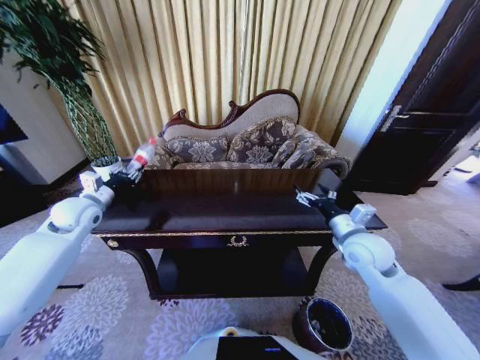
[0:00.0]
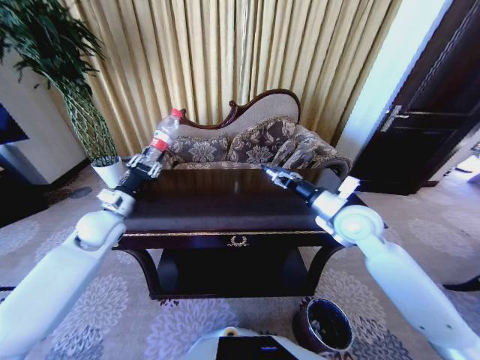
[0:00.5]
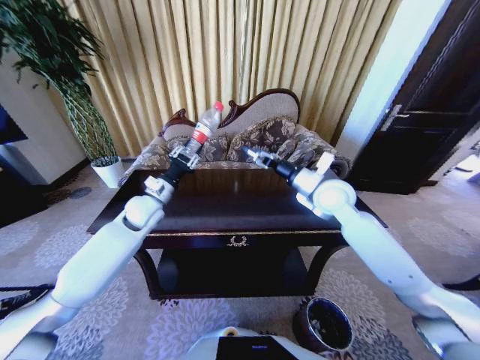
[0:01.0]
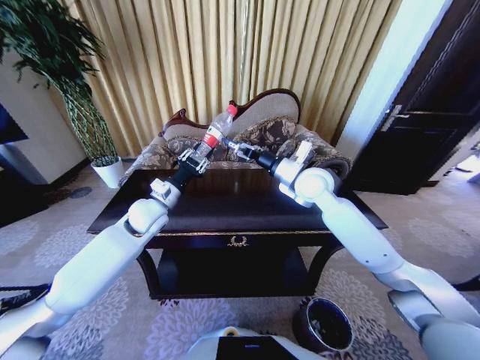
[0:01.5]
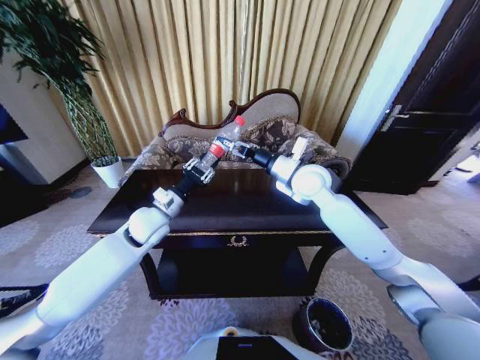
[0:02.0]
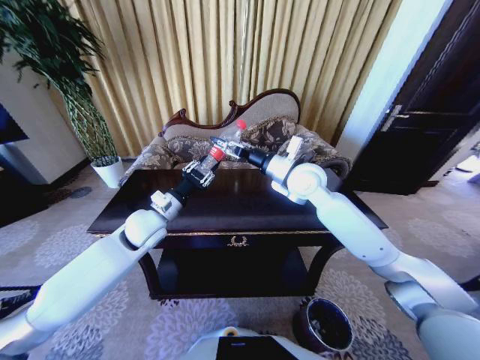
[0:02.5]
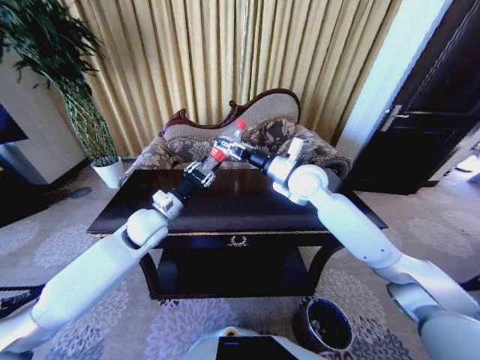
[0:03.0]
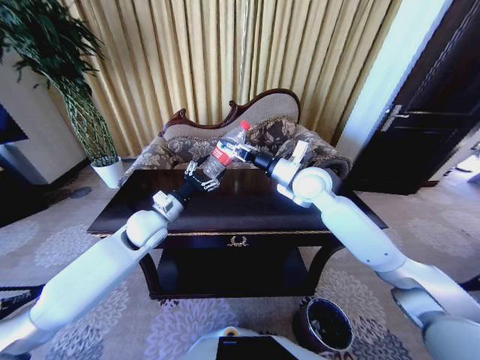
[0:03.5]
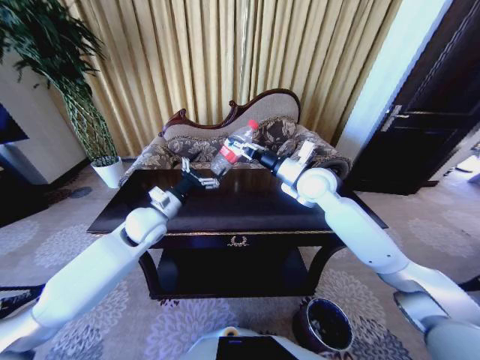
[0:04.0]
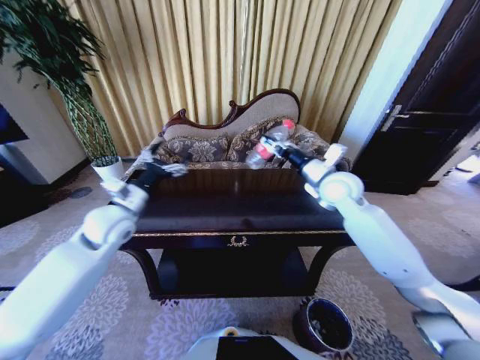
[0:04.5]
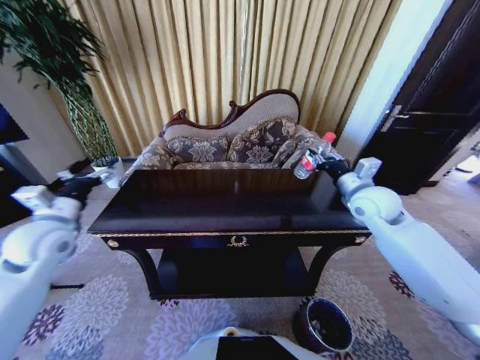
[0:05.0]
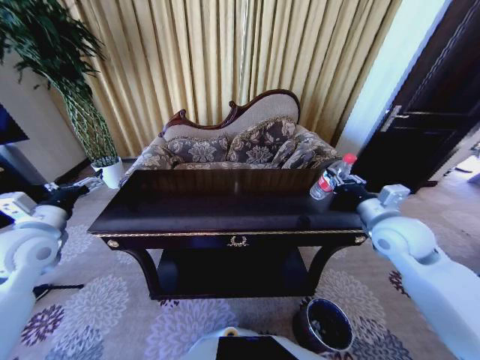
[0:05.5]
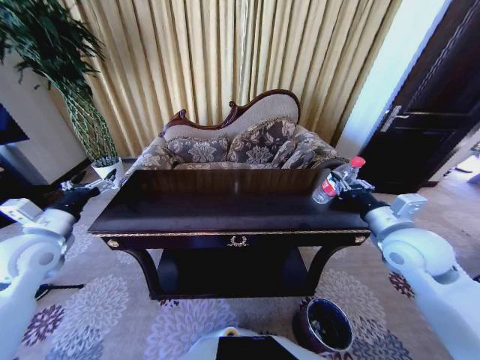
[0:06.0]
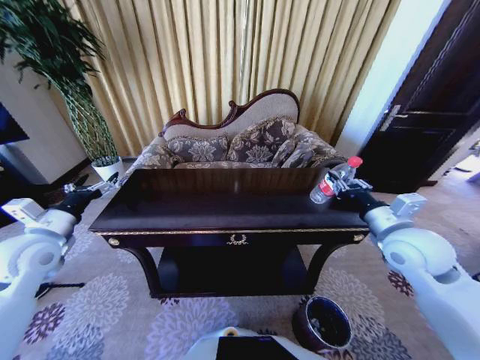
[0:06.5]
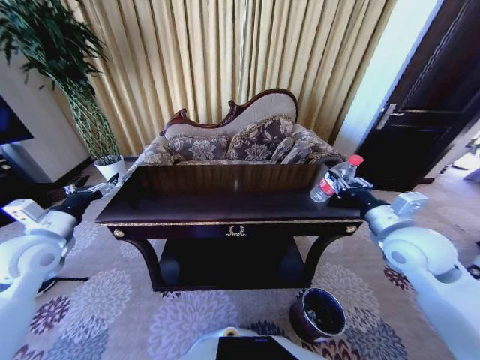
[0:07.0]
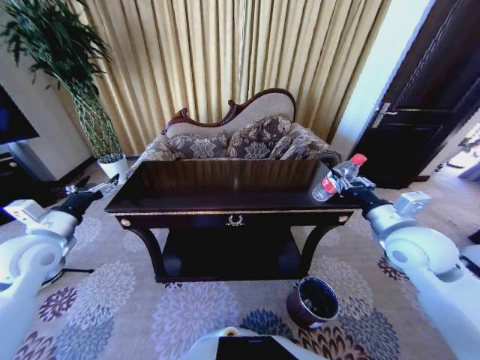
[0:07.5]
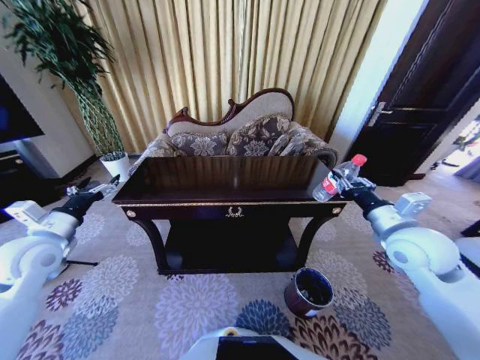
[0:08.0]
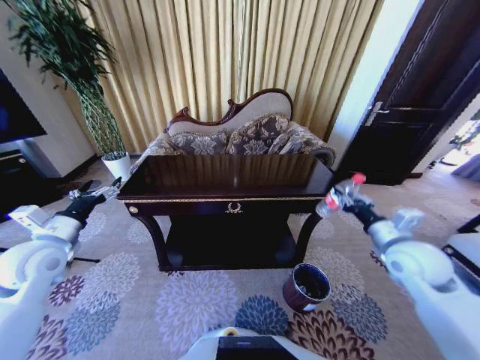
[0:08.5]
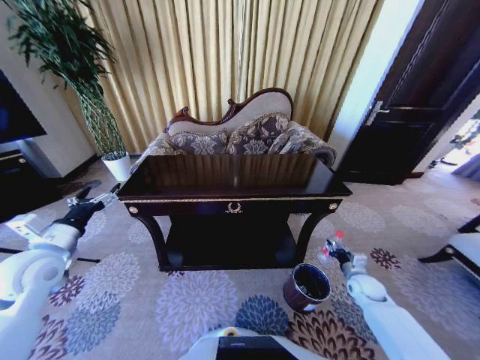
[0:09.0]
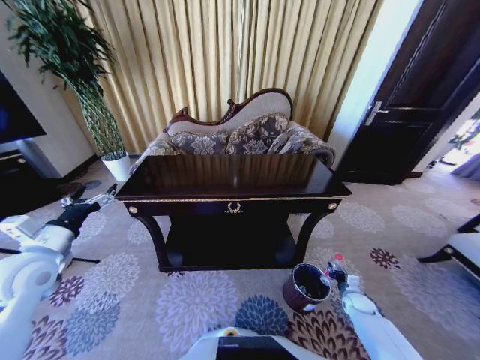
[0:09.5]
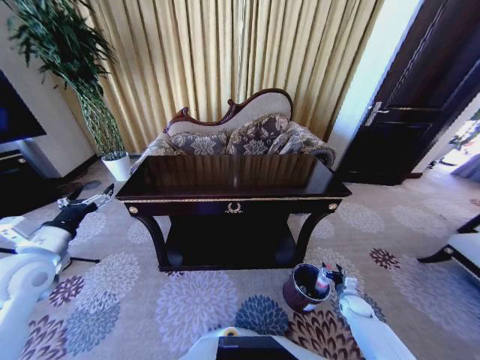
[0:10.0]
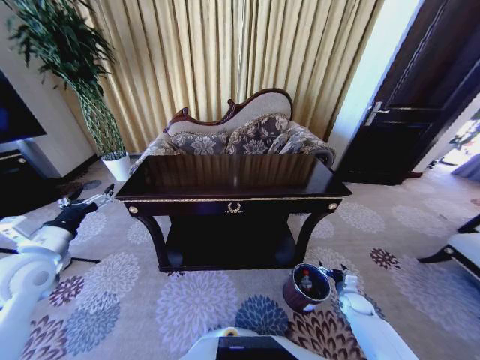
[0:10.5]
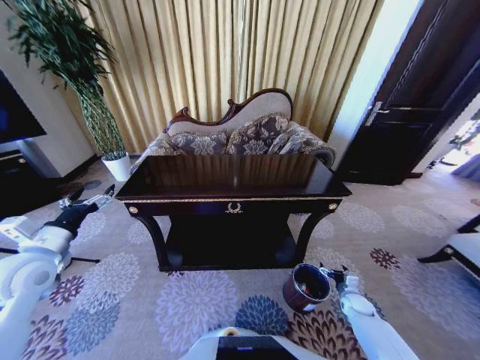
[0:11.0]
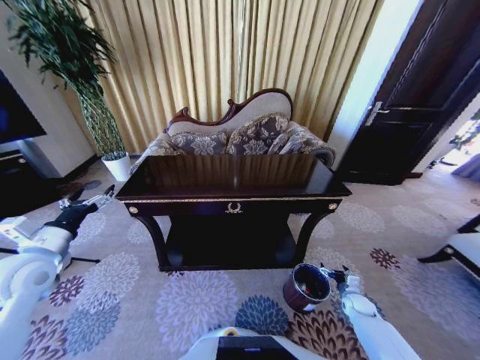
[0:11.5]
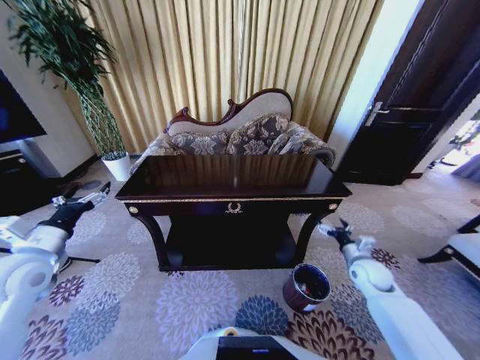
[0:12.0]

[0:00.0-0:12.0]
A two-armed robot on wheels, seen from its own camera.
Task of the whole recording: Move to the front of the table and place the trash on the table into the trash bin.
0:00.0 to 0:02.0: The right gripper goes some 20 cm forward, to the left and upward. Meanwhile the left gripper travels to the right by some 20 cm.
0:02.0 to 0:04.0: The left gripper opens up. Meanwhile the right gripper closes.
0:04.0 to 0:06.0: The right gripper shifts about 25 cm backward and to the right. The left gripper is displaced to the left and backward by roughly 20 cm.
0:08.0 to 0:10.0: The right gripper heads downward, covering some 40 cm, and opens its fingers.
0:10.0 to 0:12.0: The right gripper travels upward by approximately 20 cm, and opens up.

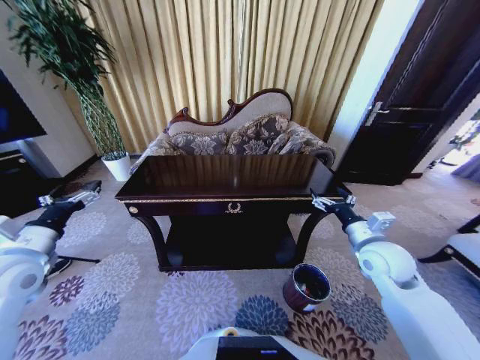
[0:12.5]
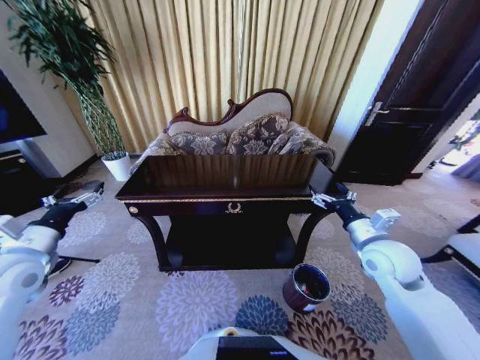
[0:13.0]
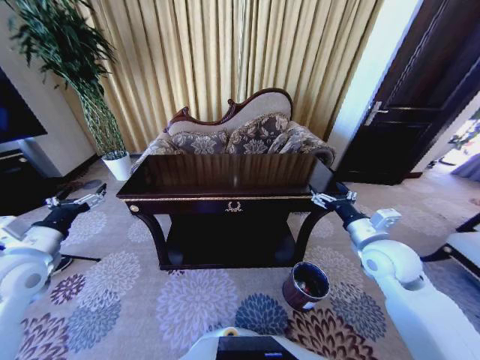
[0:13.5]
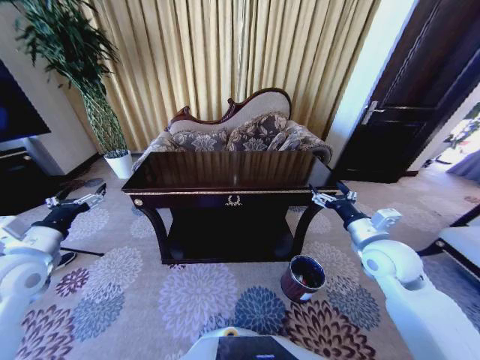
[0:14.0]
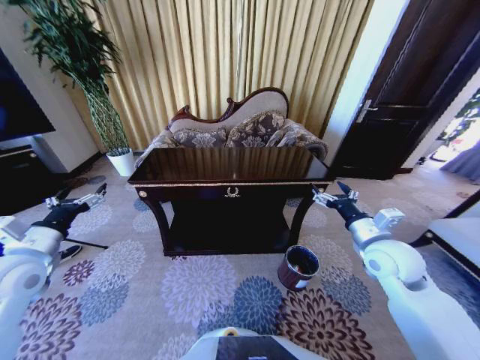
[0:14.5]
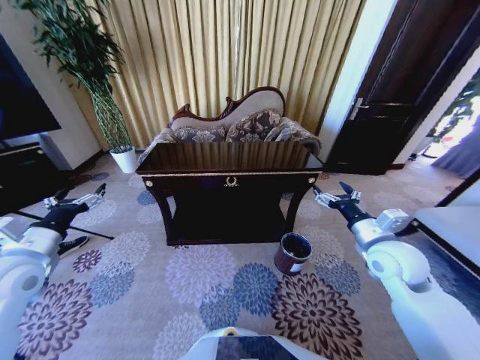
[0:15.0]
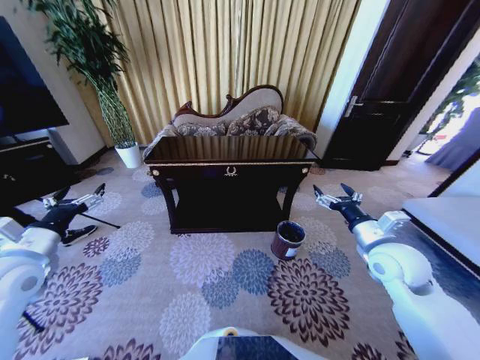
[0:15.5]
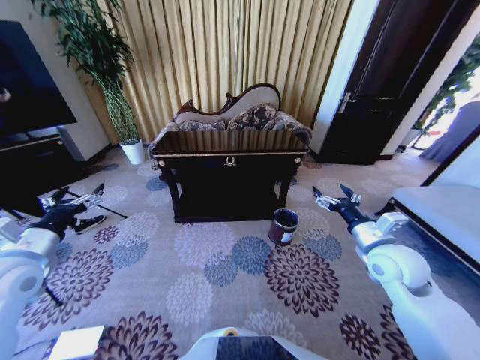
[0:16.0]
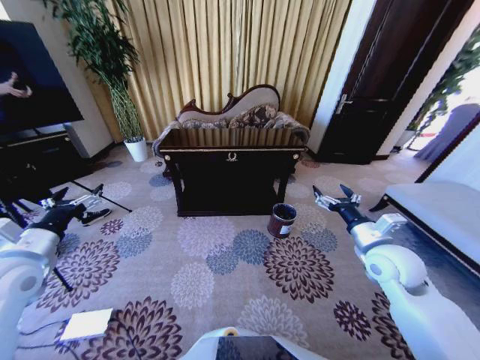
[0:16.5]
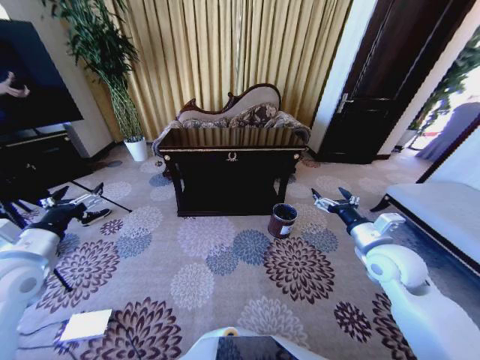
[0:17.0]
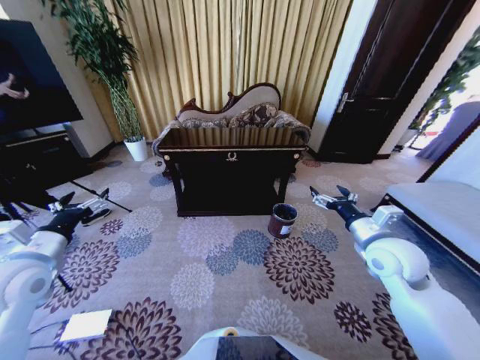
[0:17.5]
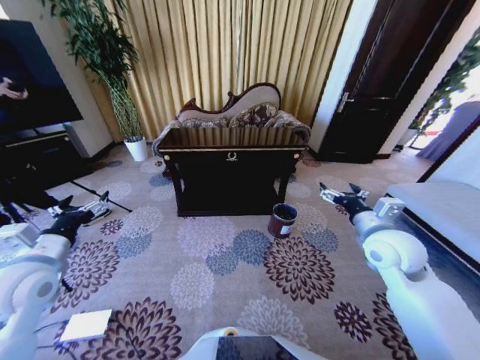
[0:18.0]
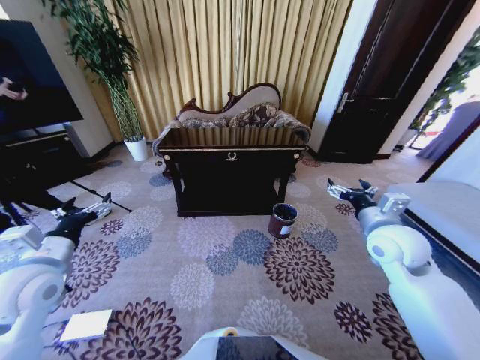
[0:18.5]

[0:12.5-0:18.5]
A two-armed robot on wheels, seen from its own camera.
Task of the whole recording: Move to the front of the table and place the trash on the table into the trash bin.
0:16.5 to 0:18.5: The grippers stay close to where they were, moving slightly.
